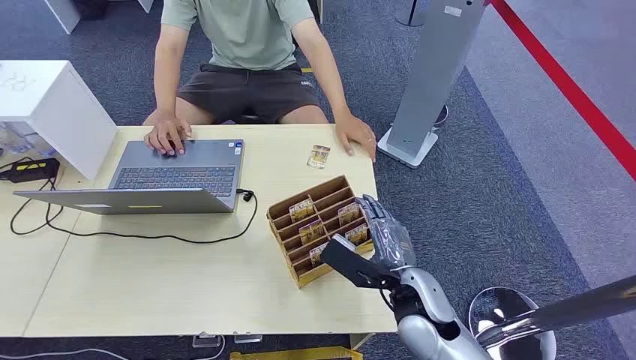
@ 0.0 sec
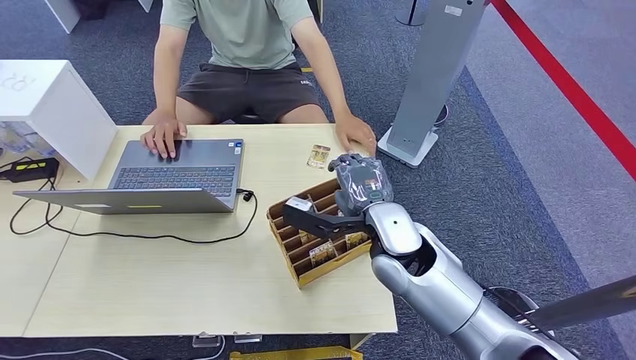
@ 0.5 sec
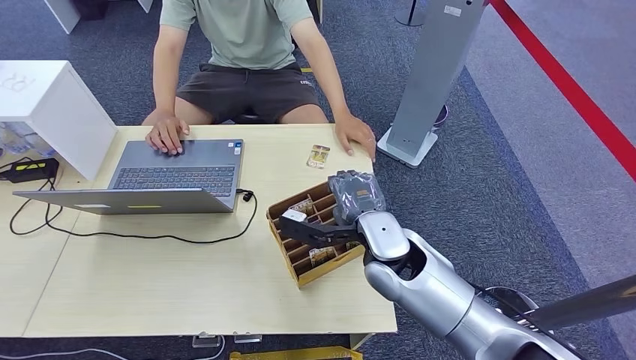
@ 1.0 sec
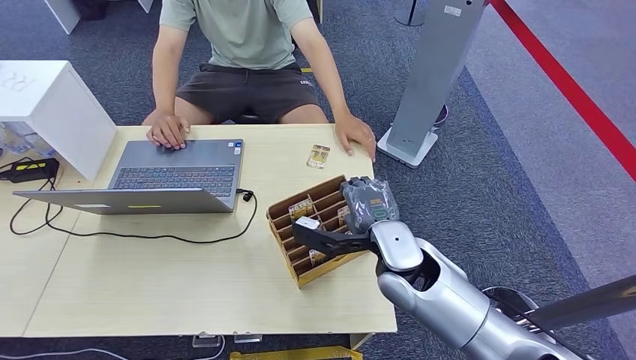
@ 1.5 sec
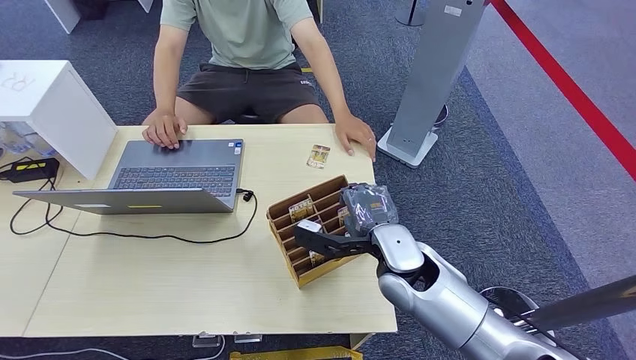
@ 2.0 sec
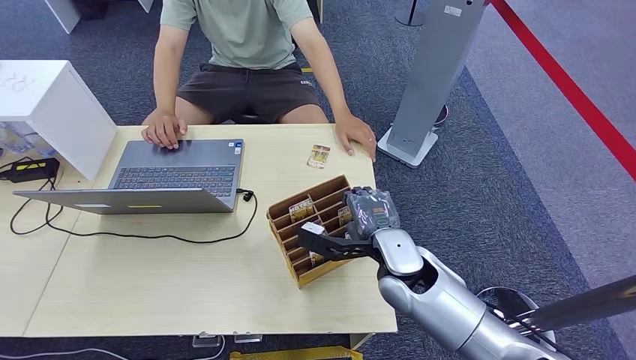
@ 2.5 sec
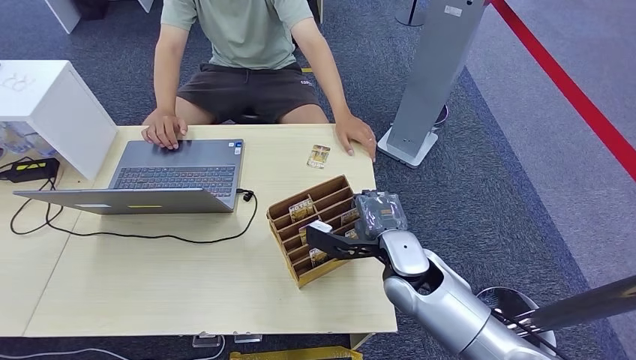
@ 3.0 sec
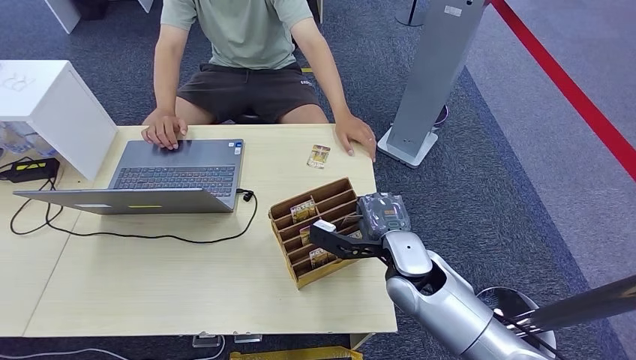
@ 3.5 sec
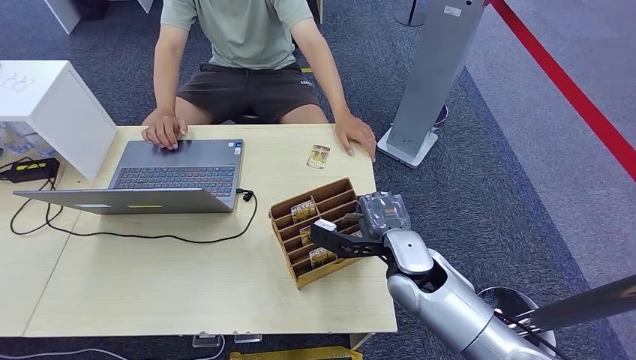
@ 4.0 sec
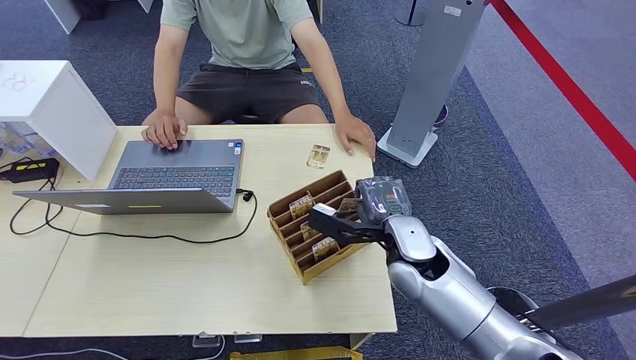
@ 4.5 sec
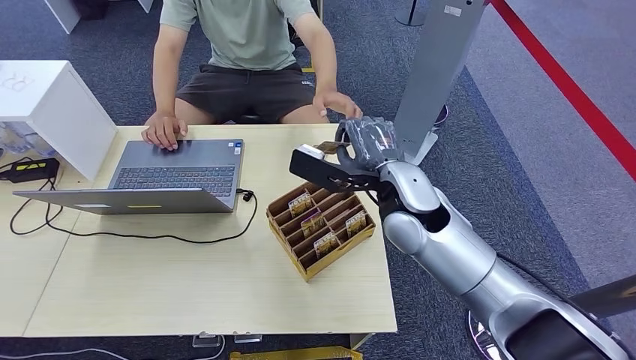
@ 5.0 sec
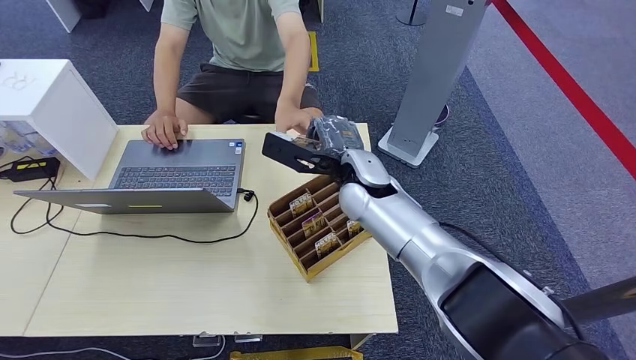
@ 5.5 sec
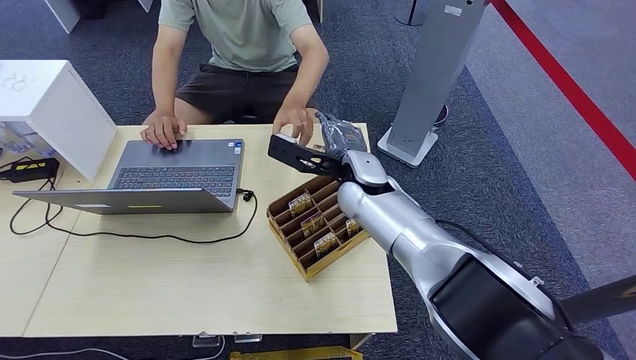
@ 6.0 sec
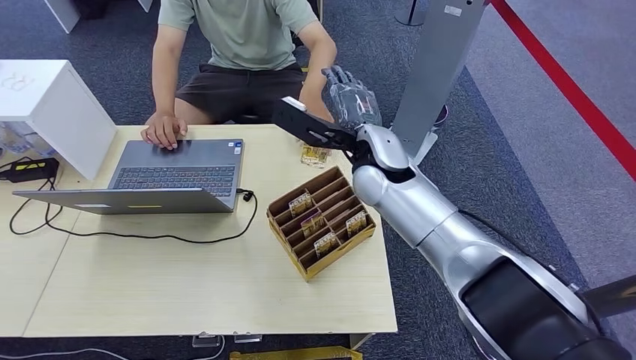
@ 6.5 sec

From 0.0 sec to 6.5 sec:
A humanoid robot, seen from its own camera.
Step, from 0.0 sec to 5.0 sec: Pick up the key card from the card box.
Step, from 5.5 sec to 6.5 sec: Hand the key card to the target.
From 2.0 sec to 4.5 sec: The hands make only small movements.
From 4.5 sec to 6.5 sec: The right hand goes up and down, roughly 10 cm each way, reversing 2 times.

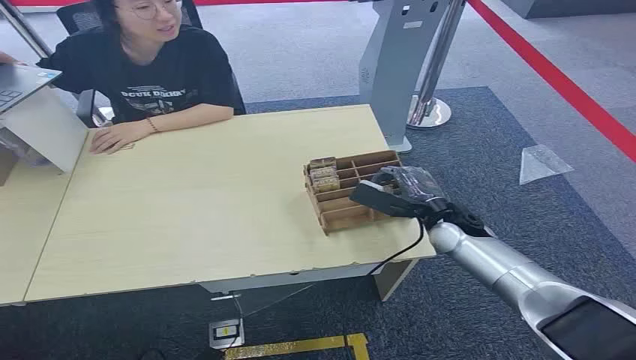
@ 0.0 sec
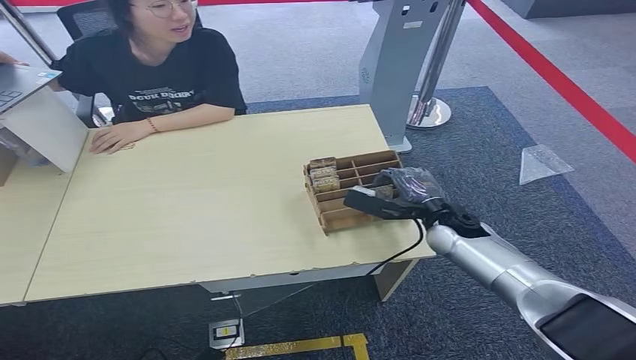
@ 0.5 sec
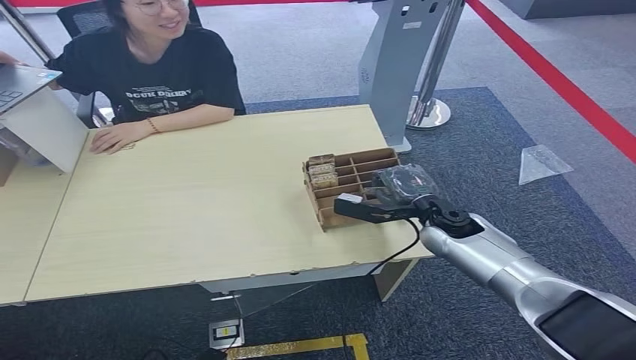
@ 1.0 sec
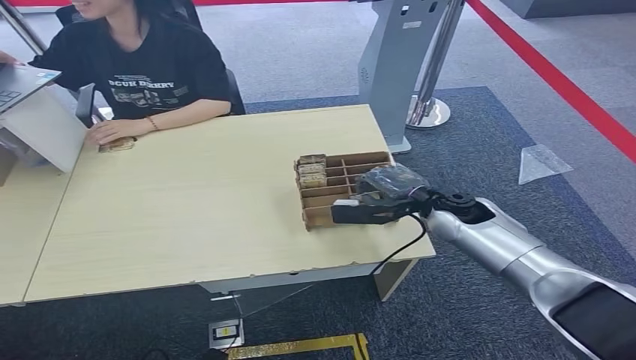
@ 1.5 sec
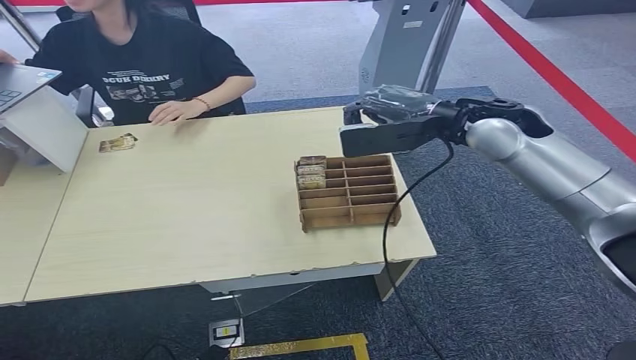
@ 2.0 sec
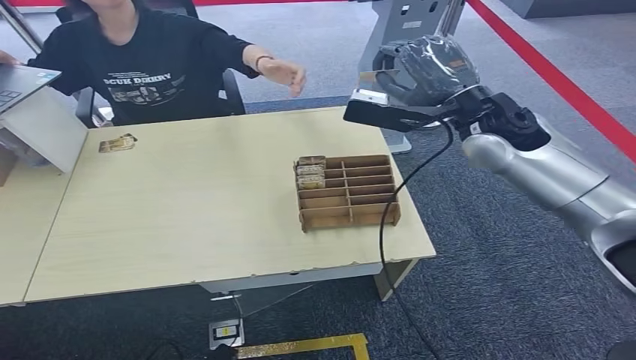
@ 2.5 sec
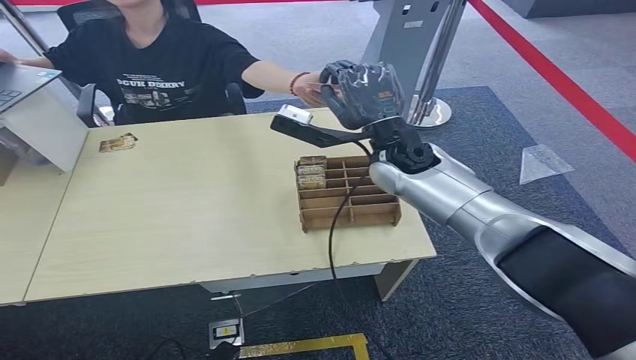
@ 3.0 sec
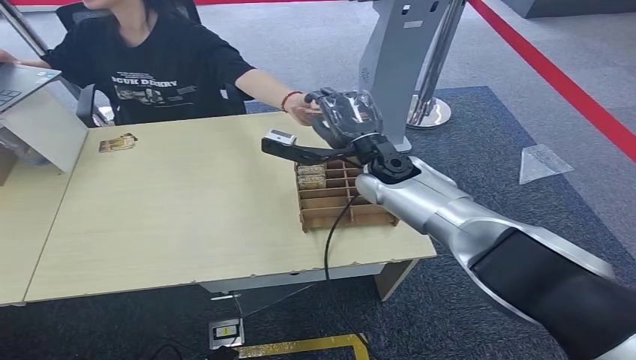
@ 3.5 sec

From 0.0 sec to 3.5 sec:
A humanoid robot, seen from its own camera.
Step, from 0.0 sec to 2.5 sec: Pick up the key card from the card box.
Step, from 3.0 sec to 3.5 sec: Hand the key card to the target.
